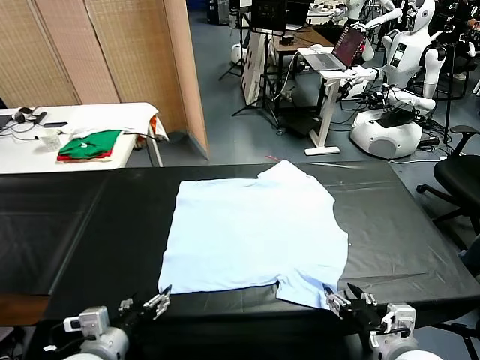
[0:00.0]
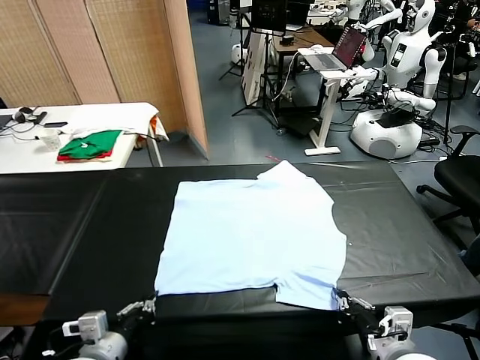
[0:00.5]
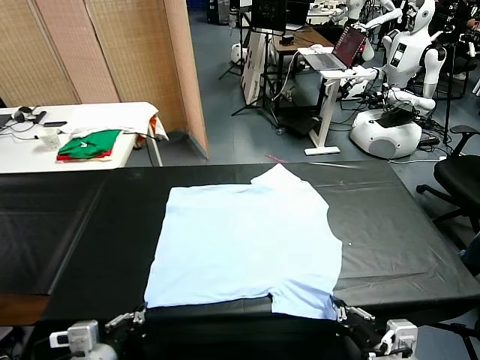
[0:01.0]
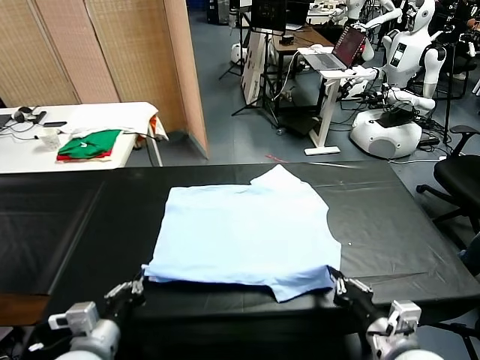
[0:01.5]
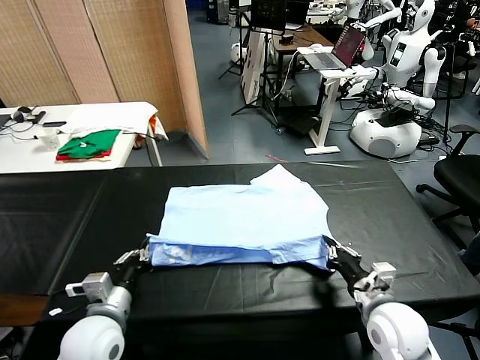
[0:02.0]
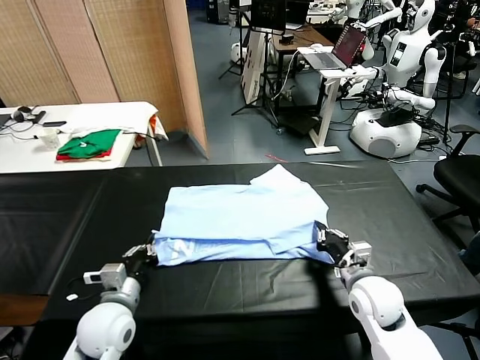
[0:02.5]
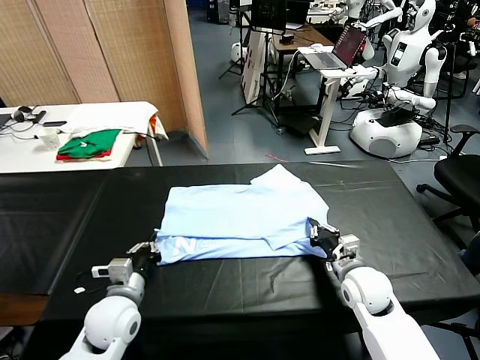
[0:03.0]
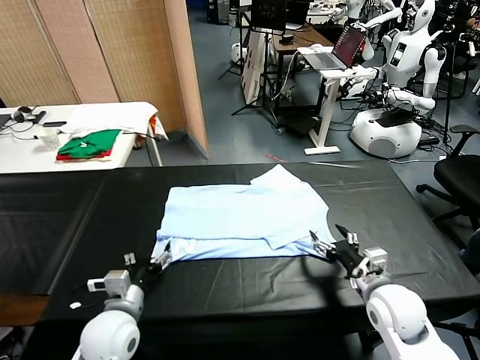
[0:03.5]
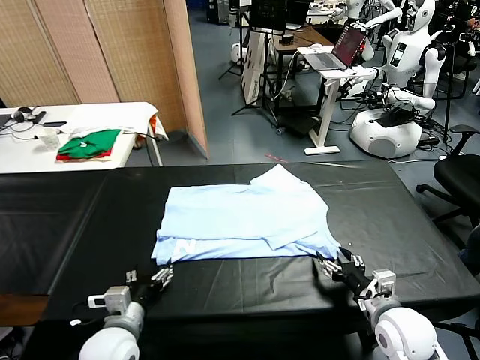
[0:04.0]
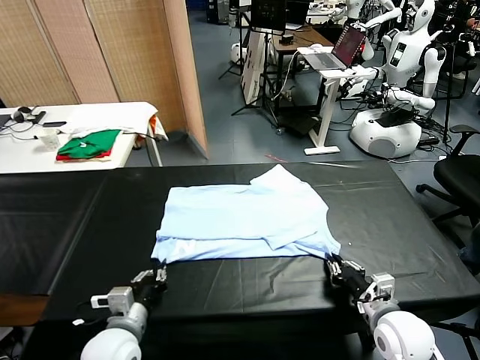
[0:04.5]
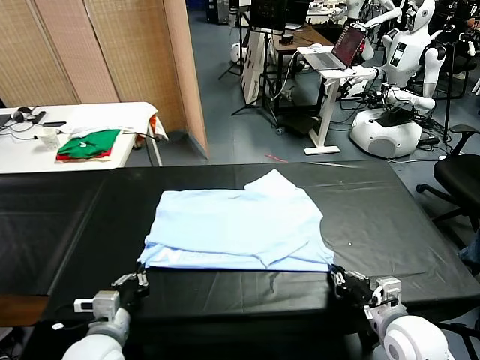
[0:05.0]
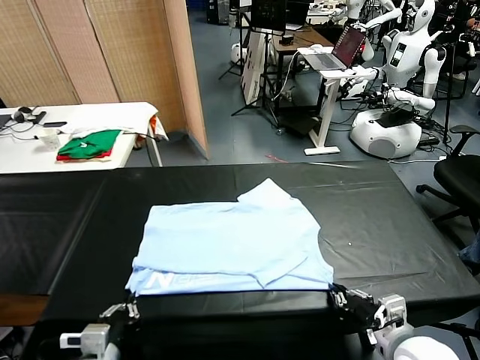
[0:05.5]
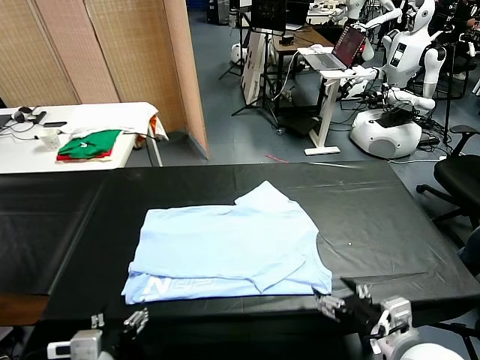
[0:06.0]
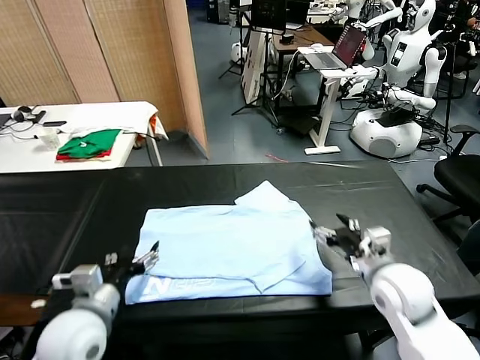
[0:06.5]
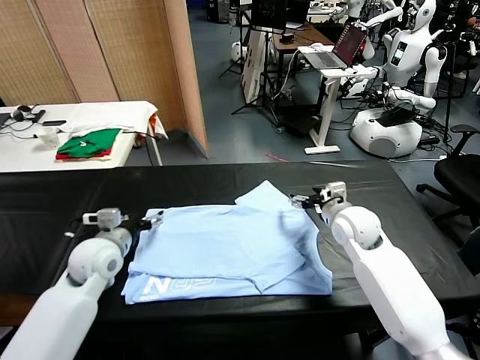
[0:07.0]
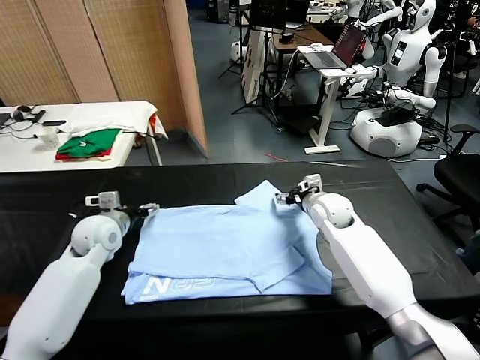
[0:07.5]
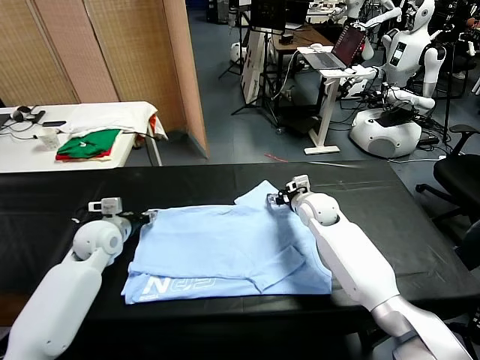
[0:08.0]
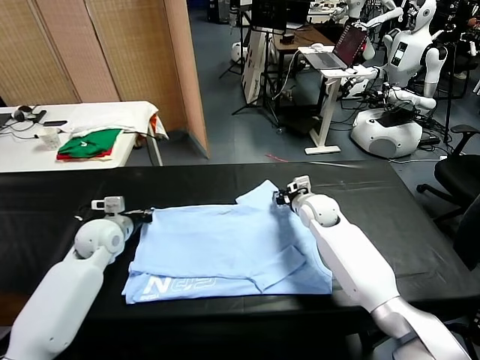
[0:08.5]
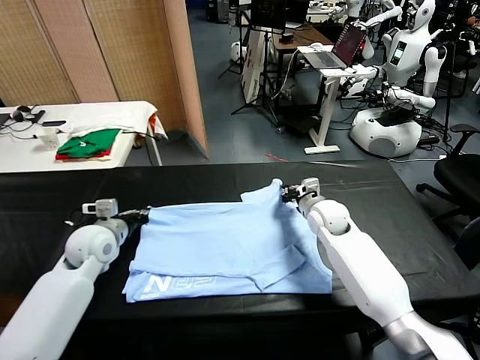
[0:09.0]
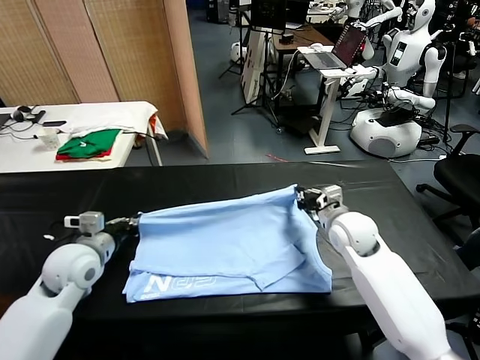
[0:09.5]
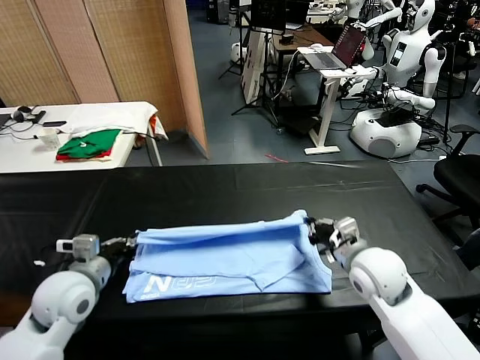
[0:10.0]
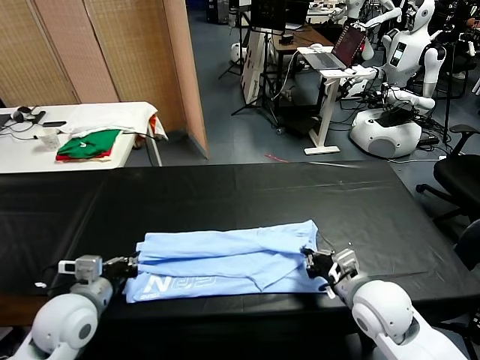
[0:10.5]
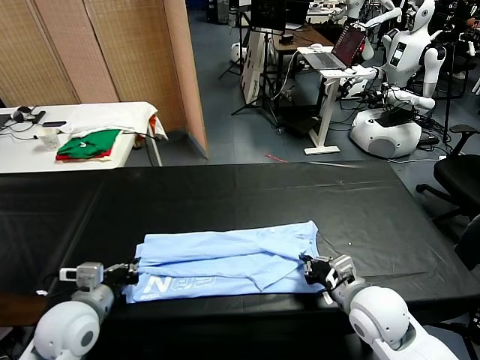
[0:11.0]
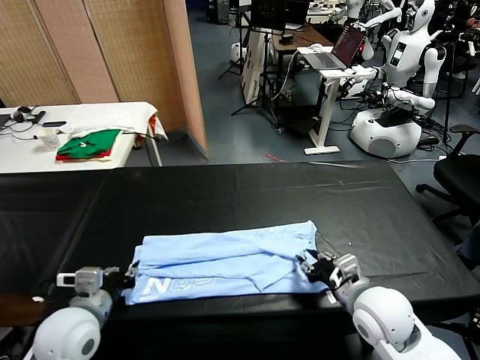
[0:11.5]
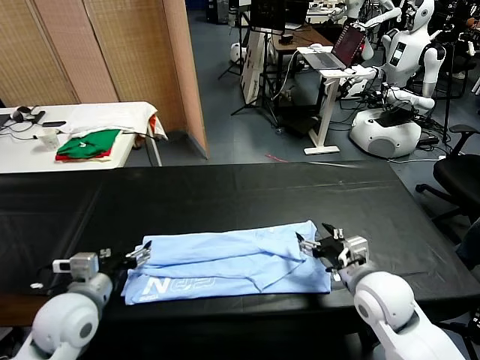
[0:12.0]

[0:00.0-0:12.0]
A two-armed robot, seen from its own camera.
Task of the whole recording: fold and organize the clothes.
Step, 0:00.0 to 0:00.5: use both grippers simultaneously to clamp the lower edge of the clothing fabric.
Step, 0:01.0 to 0:03.0: use both grippers to drag the lower edge of the fabric forward and fold it over the upper edge.
Step, 0:03.5 to 0:05.5: Drag the clothes downward with both gripper.
Step, 0:06.0 to 0:08.5: use both grippers simultaneously to clamp the upper edge of the clothing fabric.
Step, 0:09.0 to 0:11.5: use both grippers to drag the upper edge of the fabric backward and fold it over the lower edge.
0:02.0 to 0:04.0: The left gripper goes approximately 15 cm forward and downward, and opens. Meanwhile the right gripper heads forward, covering approximately 15 cm, and opens its fingers.
0:04.0 to 0:06.0: The grippers both shift backward by roughly 10 cm. The left gripper closes its fingers. The right gripper closes up.
0:06.0 to 0:08.0: Both grippers travel together forward, roughly 30 cm. The right gripper opens; the left gripper opens its fingers.
0:08.0 to 0:10.0: The grippers both shift backward by some 10 cm. The left gripper closes its fingers. The right gripper closes its fingers.
0:10.0 to 0:12.0: The two grippers go approximately 15 cm backward. The right gripper opens.

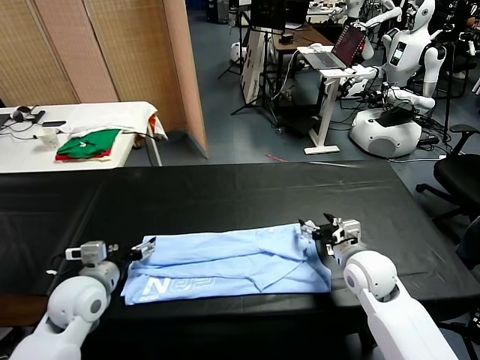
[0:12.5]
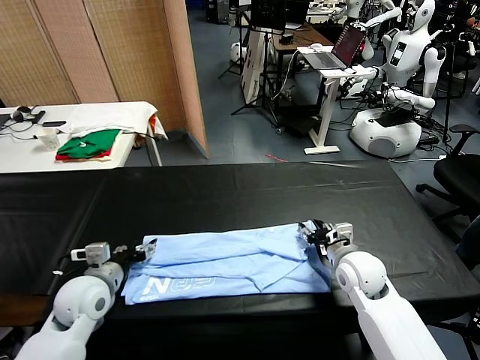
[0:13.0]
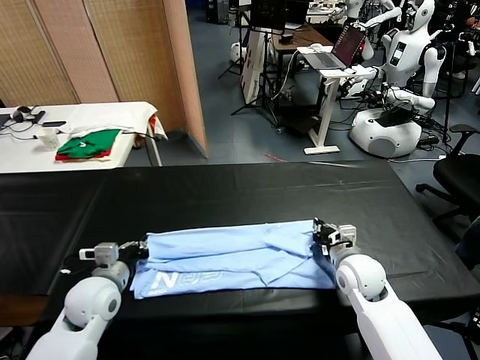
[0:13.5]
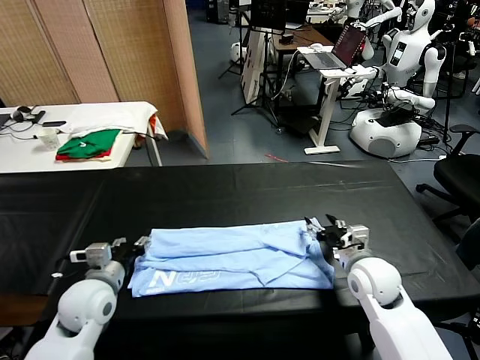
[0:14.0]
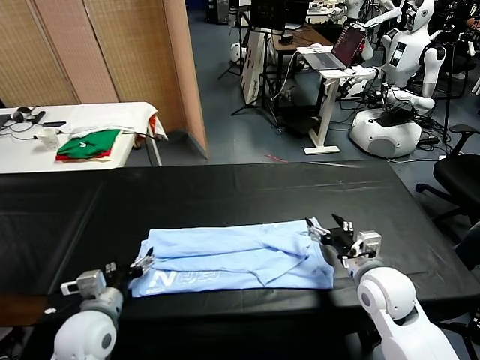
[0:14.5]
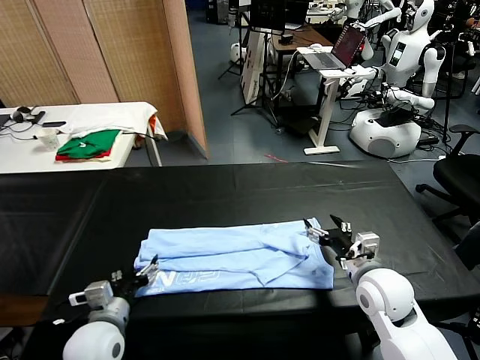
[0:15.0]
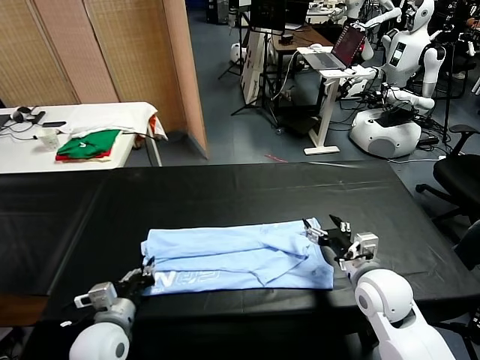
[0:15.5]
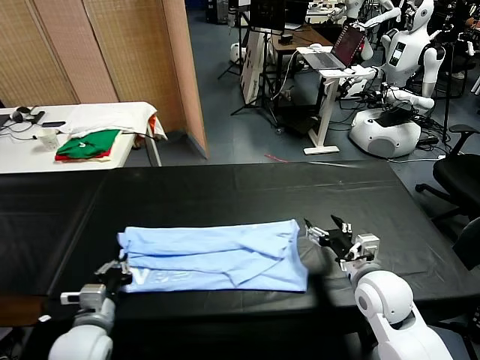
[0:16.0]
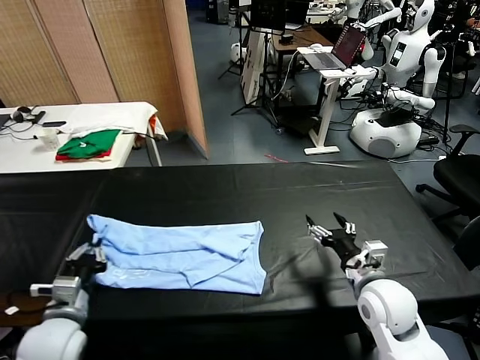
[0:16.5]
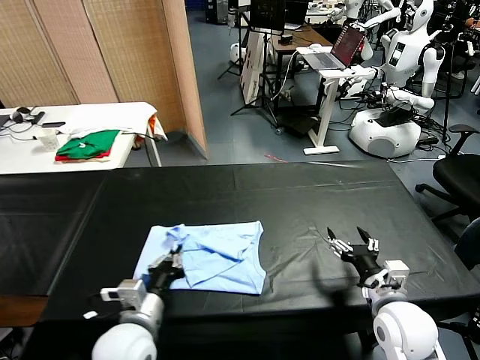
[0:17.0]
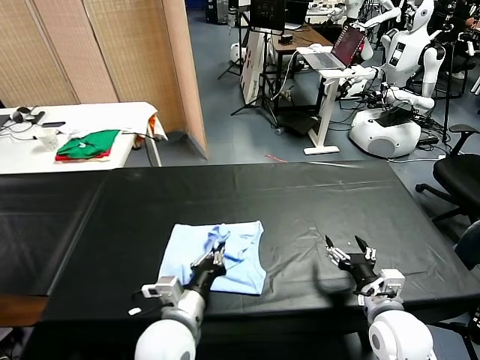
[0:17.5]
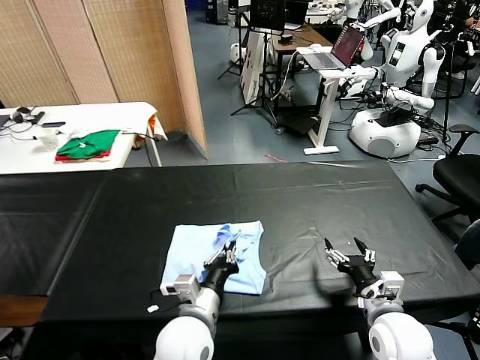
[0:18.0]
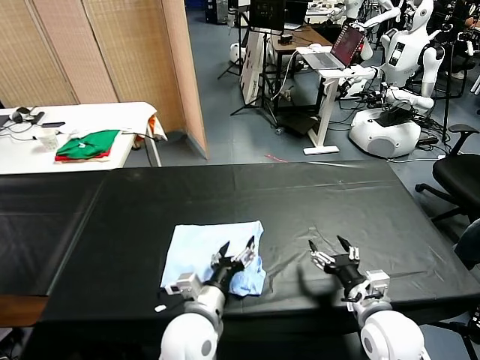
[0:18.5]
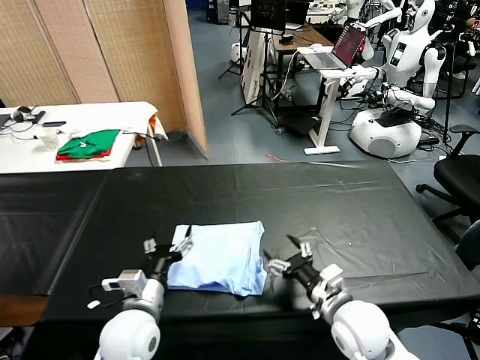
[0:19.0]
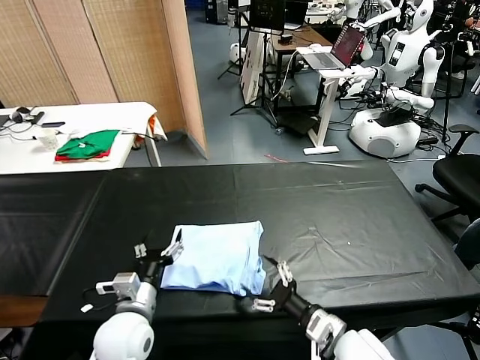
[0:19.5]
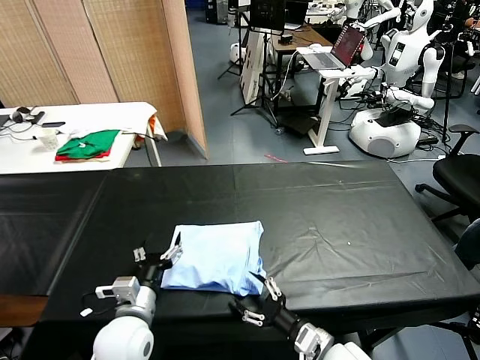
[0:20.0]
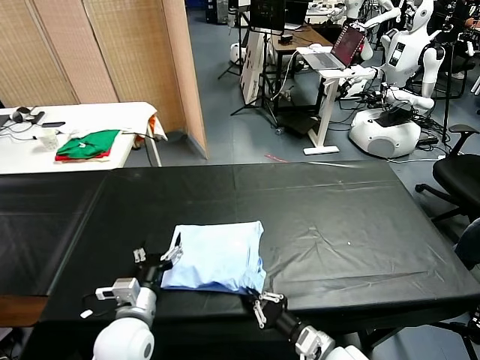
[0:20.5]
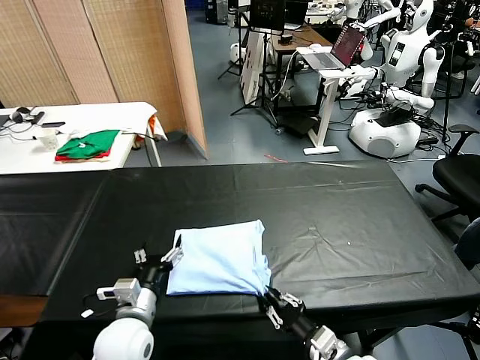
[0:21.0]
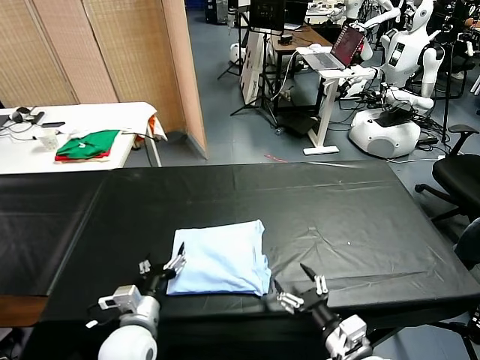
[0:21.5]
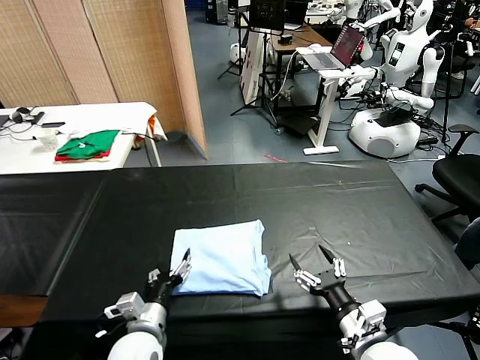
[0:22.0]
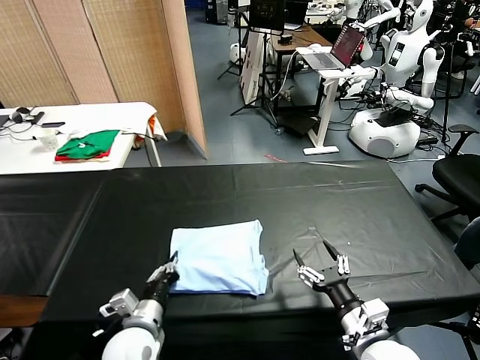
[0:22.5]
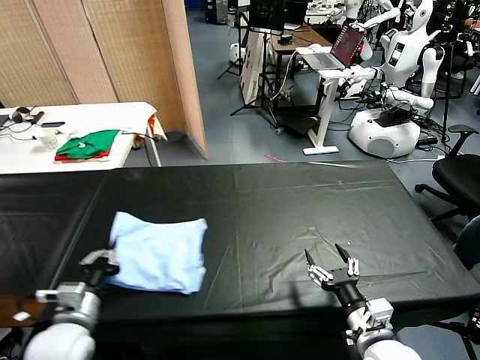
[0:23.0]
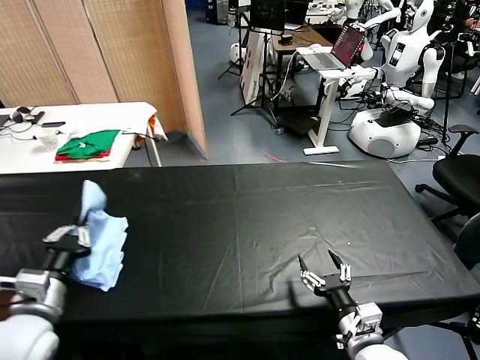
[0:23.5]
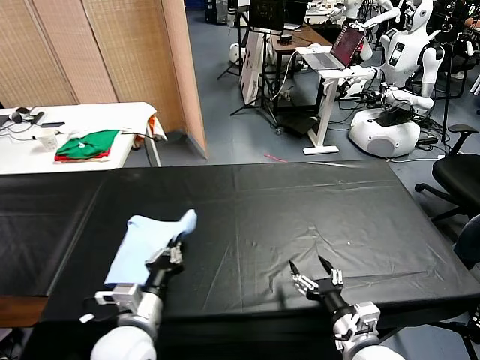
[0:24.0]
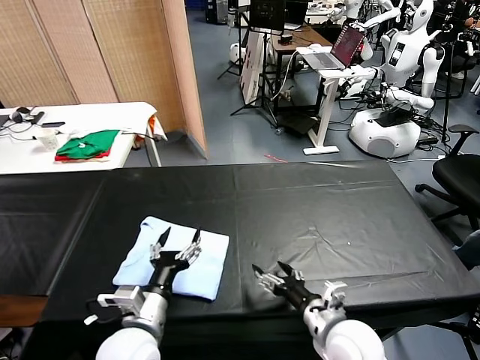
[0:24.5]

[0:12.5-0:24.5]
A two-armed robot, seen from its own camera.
Task of the whole recording: fold and organize the clothes.
Step, 0:12.5 to 0:15.5: use the left gripper to clamp the left edge of the fabric.
Step, 0:16.0 to 0:18.0: use the left gripper to drag the left edge of the fabric to the left and folds it over the right edge.
Step, 0:18.5 to 0:24.0: Flip the folded clothes over with left gripper.
0:12.5 to 0:14.5: The right gripper closes, then reopens; the left gripper closes and opens again.
0:14.5 to 0:16.5: The left gripper shifts roughly 5 cm backward, and closes its fingers.
0:16.5 to 0:18.5: The left gripper moves to the right, approximately 25 cm; the right gripper travels backward by roughly 5 cm.
0:18.5 to 0:20.5: The right gripper moves to the left and downward, some 10 cm, and closes its fingers. Meanwhile the left gripper shifts approximately 15 cm to the left, and opens up.
0:20.5 to 0:22.5: The left gripper closes its fingers. Meanwhile the right gripper travels upward and to the right by approximately 10 cm, and opens.
0:22.5 to 0:24.5: The left gripper shifts approximately 5 cm upward, moves about 15 cm to the left and comes back, and opens up.

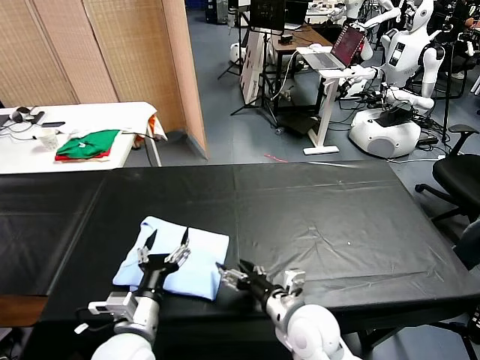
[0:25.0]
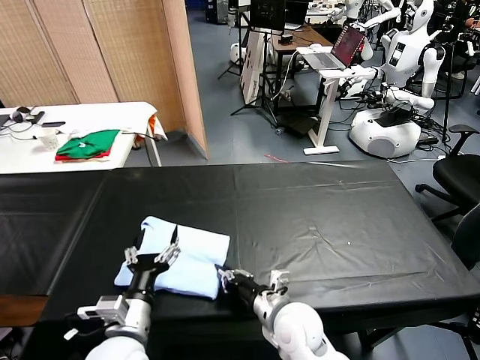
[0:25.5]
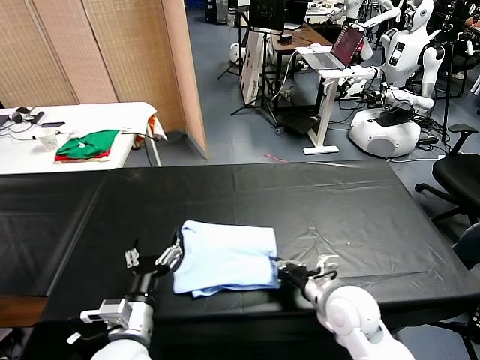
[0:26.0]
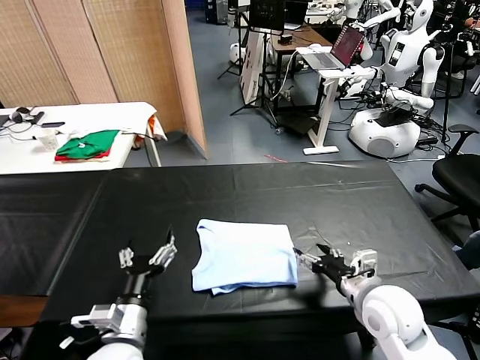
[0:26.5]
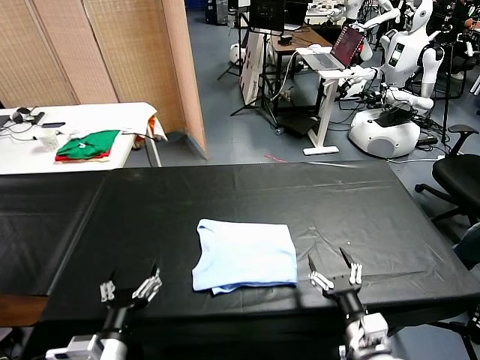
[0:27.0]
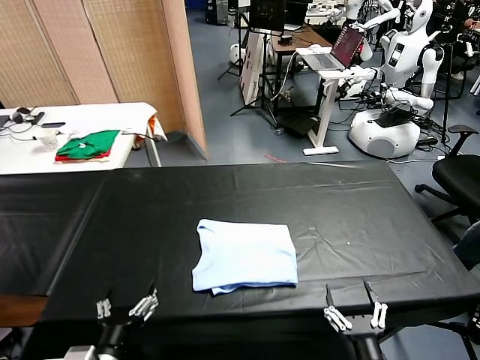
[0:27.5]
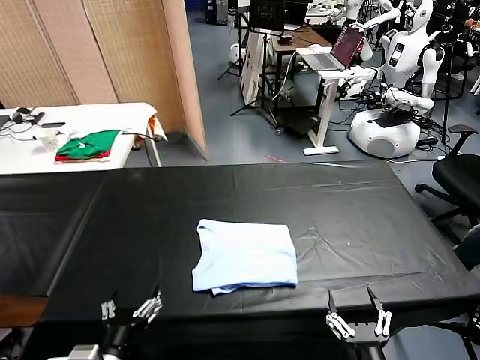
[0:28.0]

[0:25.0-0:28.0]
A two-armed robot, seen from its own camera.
Task of the whole recording: fold and organize the clothes.
0:25.0 to 0:26.5: The right gripper moves to the right, approximately 10 cm, and closes up.
0:26.5 to 0:28.0: The left gripper moves backward, some 10 cm. The right gripper heads backward, covering some 20 cm, and opens its fingers.
